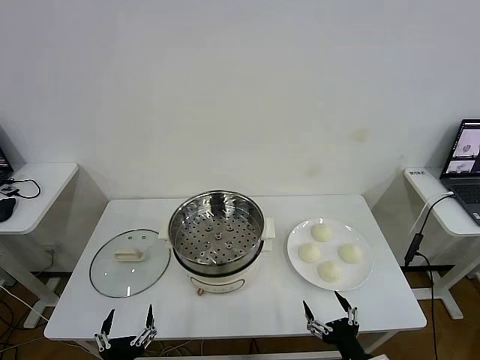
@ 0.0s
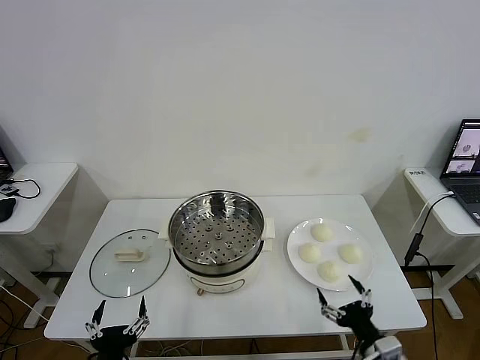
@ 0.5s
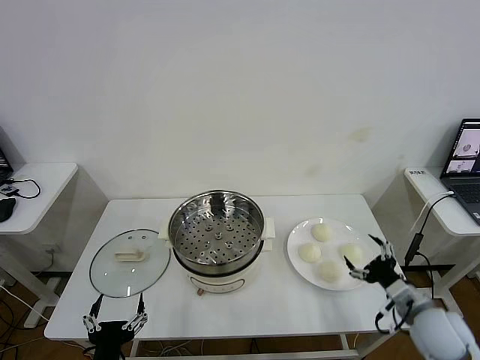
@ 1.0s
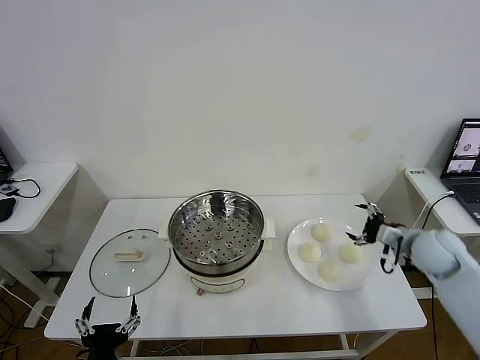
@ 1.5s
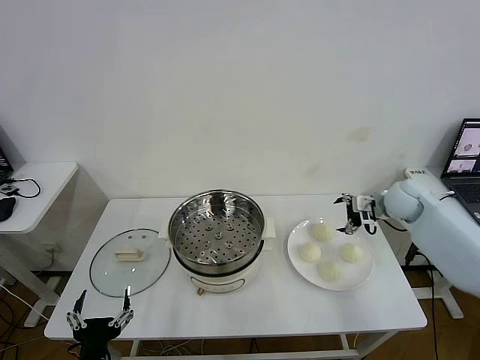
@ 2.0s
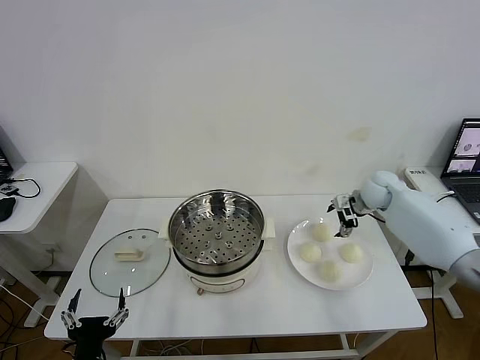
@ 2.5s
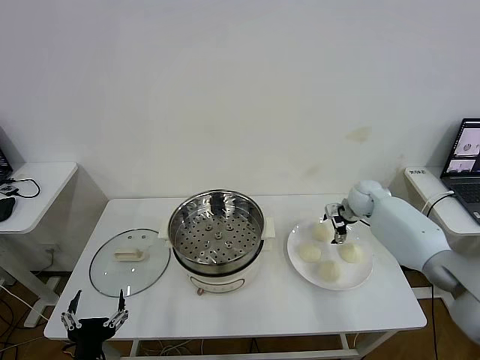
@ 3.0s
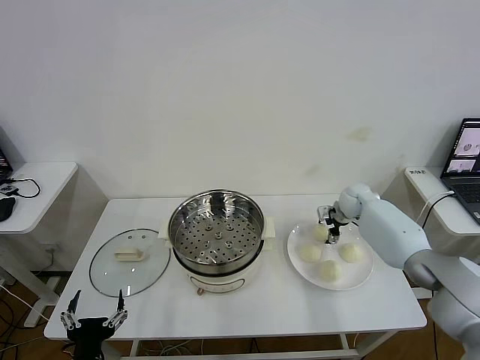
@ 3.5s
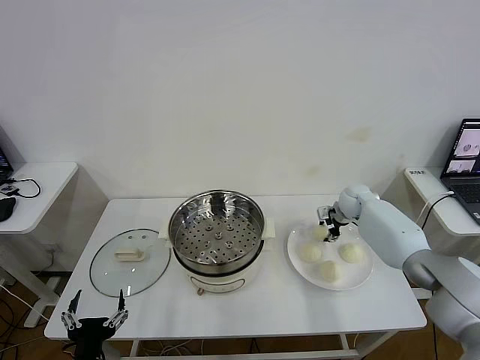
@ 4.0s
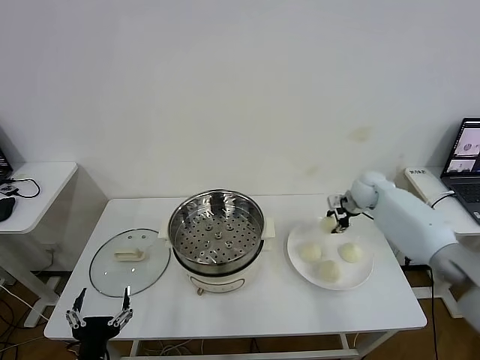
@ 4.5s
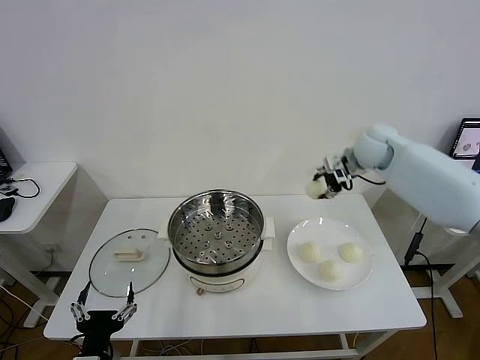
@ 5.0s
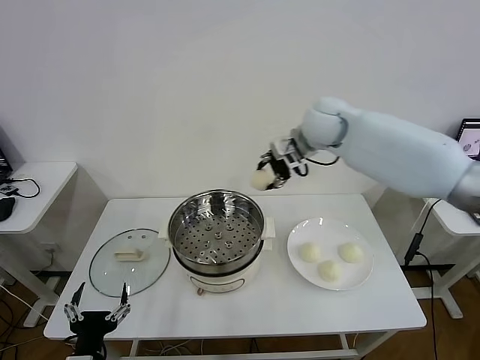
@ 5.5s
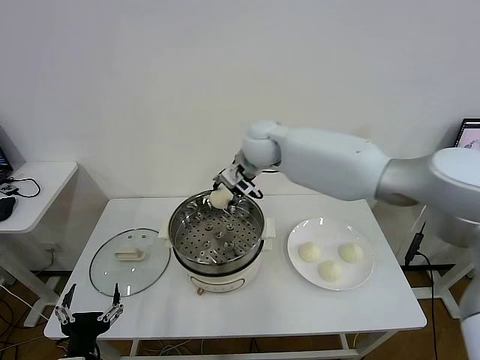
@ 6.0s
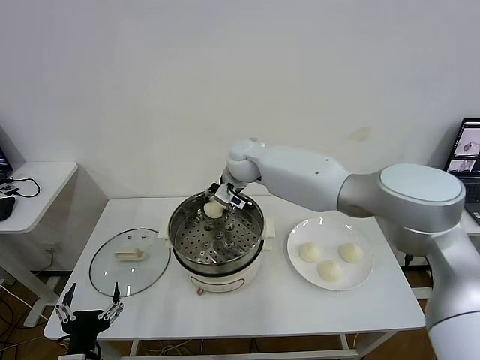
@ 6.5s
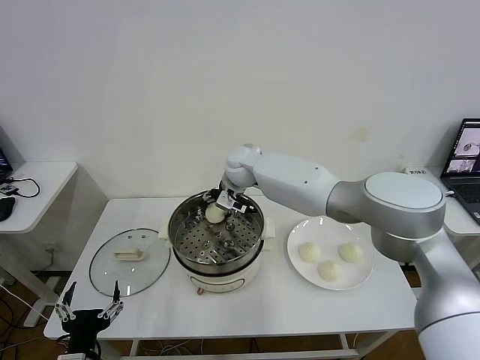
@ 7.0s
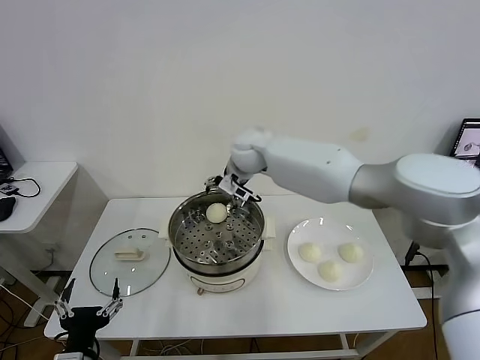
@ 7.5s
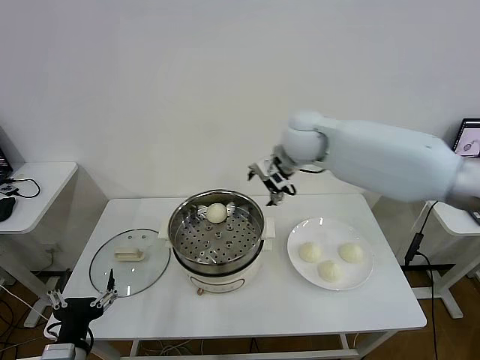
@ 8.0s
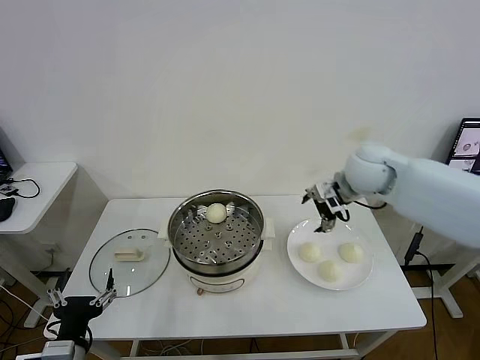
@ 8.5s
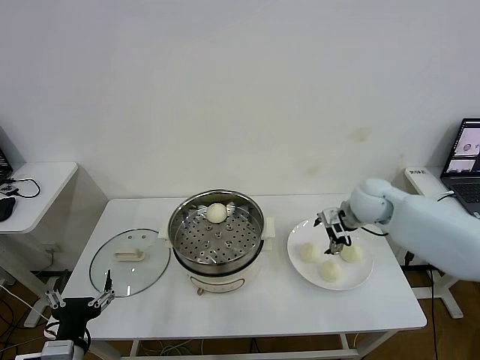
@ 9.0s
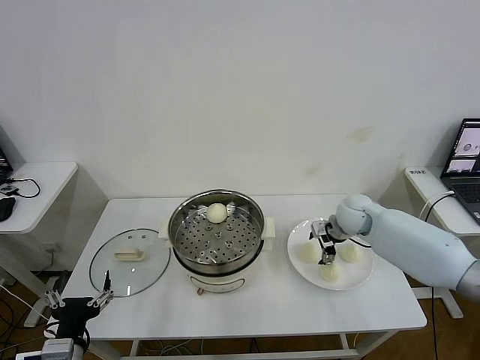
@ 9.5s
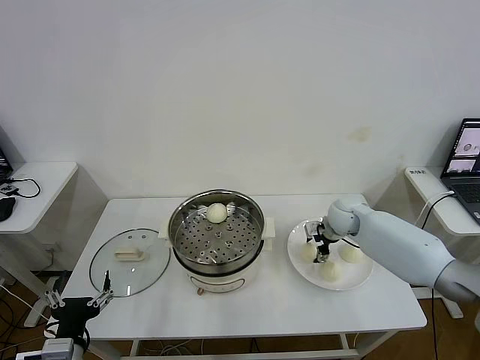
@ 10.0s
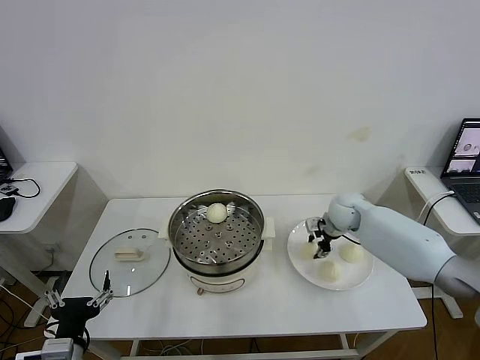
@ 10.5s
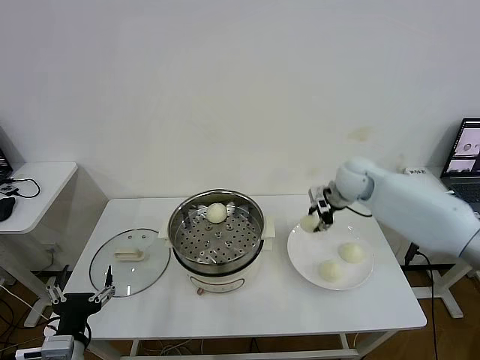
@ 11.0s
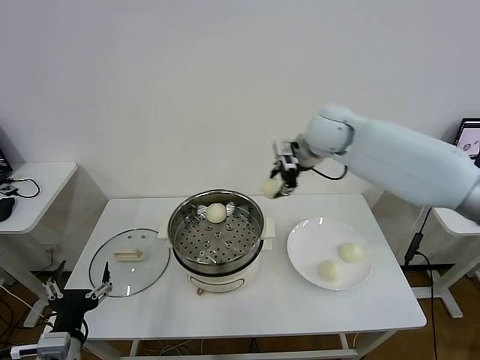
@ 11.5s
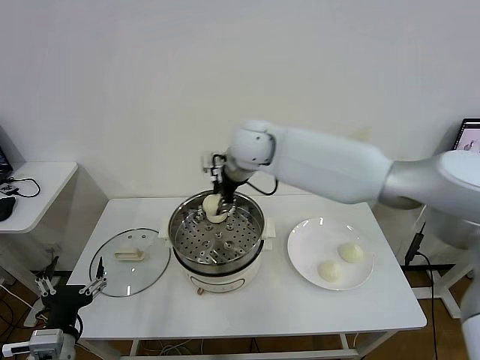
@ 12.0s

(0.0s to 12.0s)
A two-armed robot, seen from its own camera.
Task of the whole recording: take steamed baozi put them in steamer then cover it.
Step, 0.0s - 4.0s: Grasp the baozi in the plate with right gripper.
Step, 4.5s - 7.0s: Place the baozi on the steamer with right gripper.
Step, 7.5s - 10.0s: Grasp the baozi in the plate with right gripper.
2.0s - 4.0s: The right gripper goes roughly 10 cm downward, forward and to the left, and closes.
4.0s - 6.0s: The right gripper moves to the left and upward, about 35 cm.
6.0s - 8.0s: The right gripper moves to the right, about 15 cm, and opens.
8.0s - 10.0s: The right gripper shifts approximately 25 cm downward and to the right, and closes up.
10.0s - 12.0s: The right gripper is displaced to the left and upward by some 35 cm.

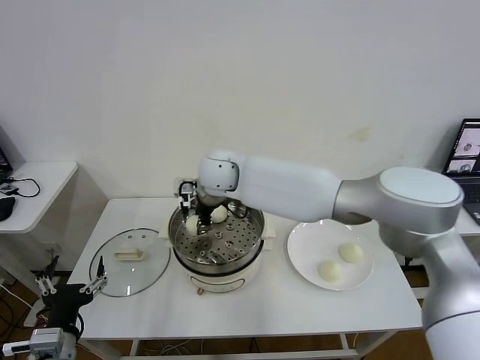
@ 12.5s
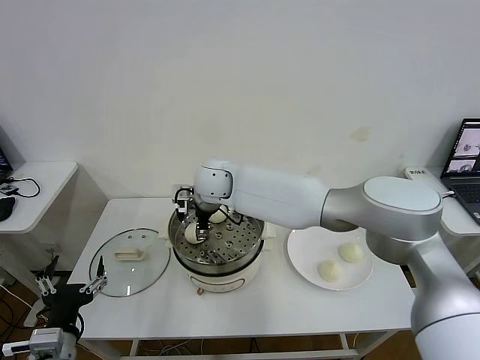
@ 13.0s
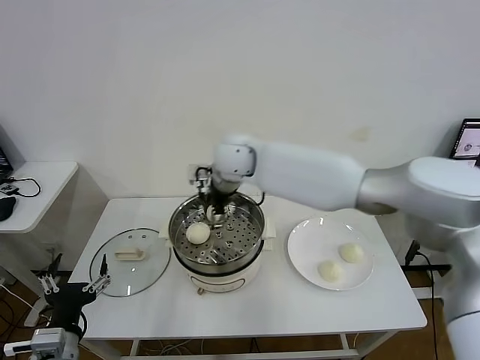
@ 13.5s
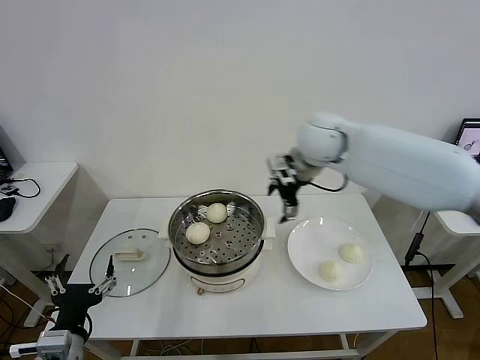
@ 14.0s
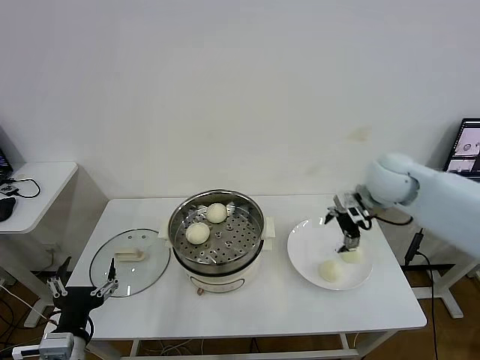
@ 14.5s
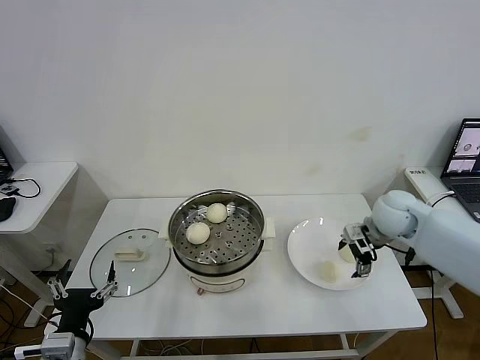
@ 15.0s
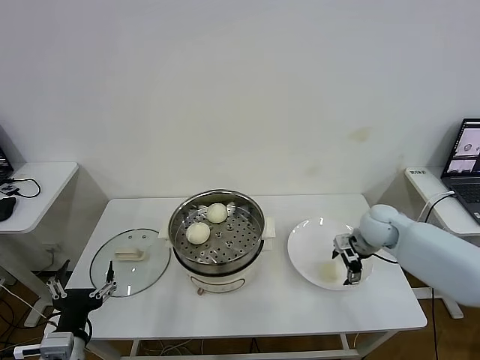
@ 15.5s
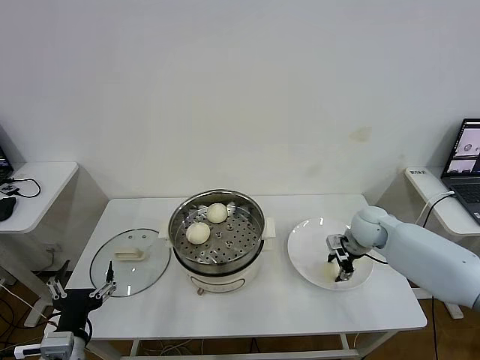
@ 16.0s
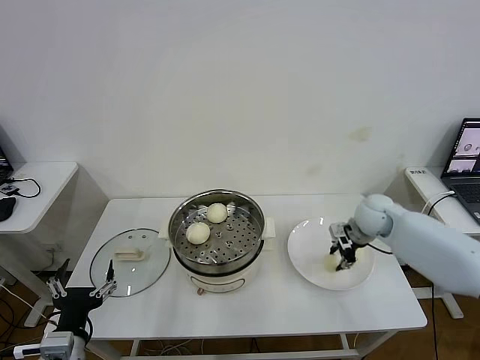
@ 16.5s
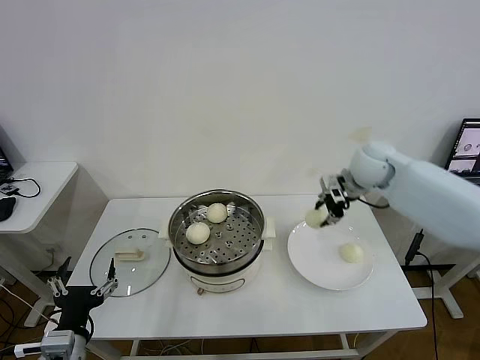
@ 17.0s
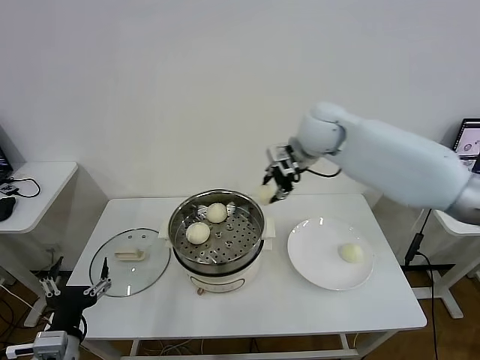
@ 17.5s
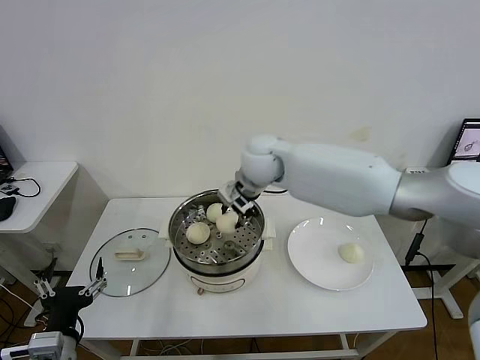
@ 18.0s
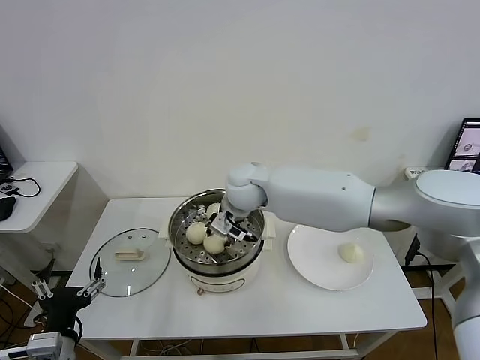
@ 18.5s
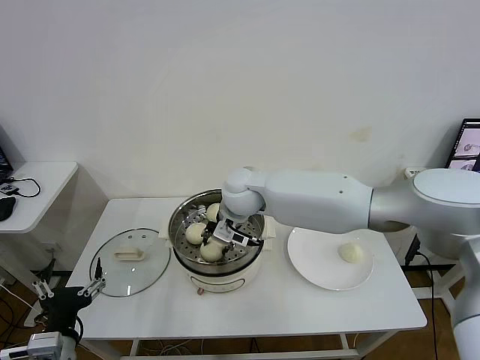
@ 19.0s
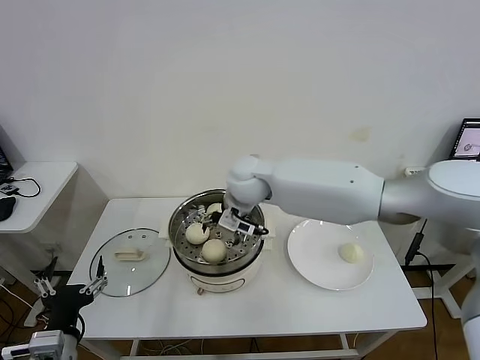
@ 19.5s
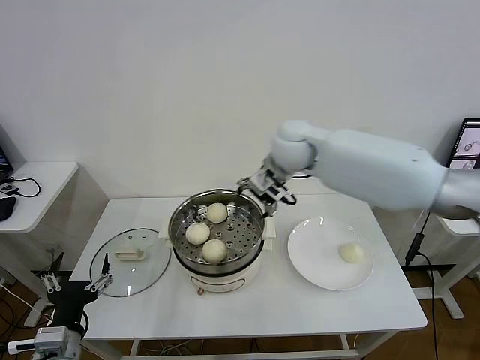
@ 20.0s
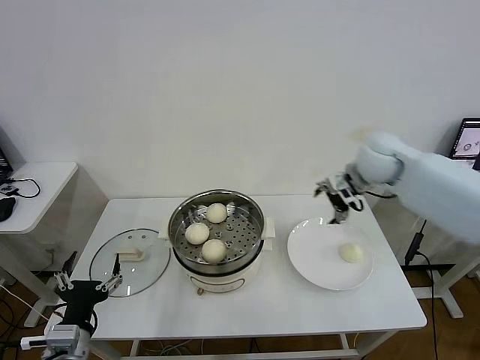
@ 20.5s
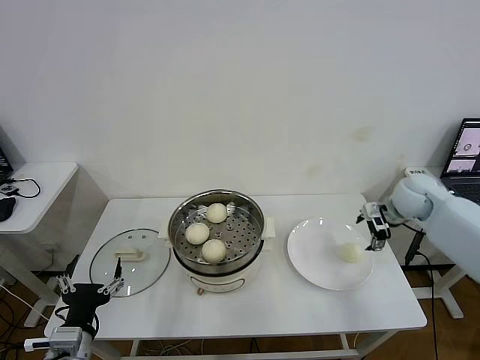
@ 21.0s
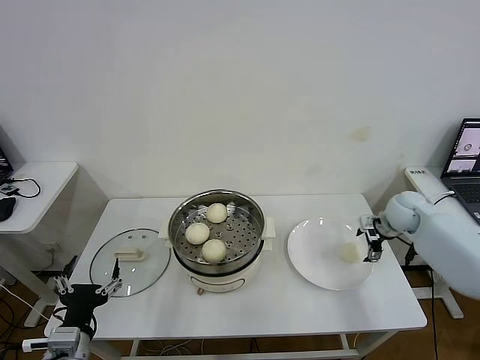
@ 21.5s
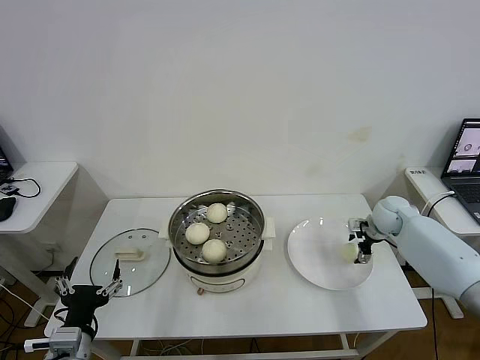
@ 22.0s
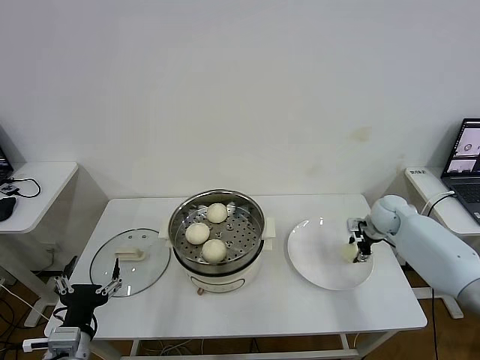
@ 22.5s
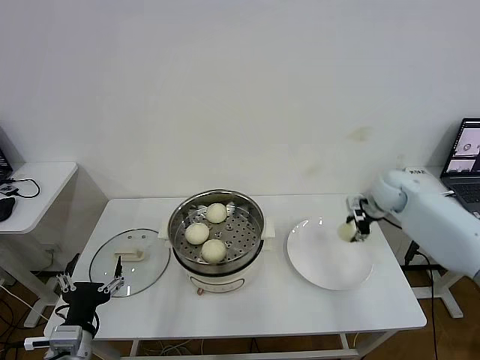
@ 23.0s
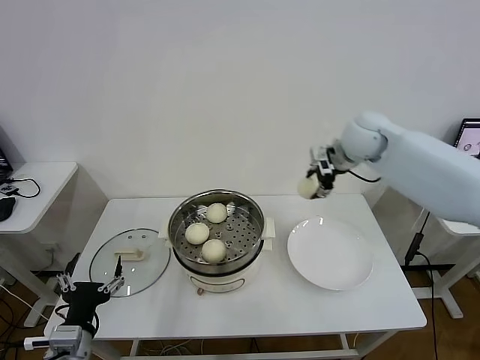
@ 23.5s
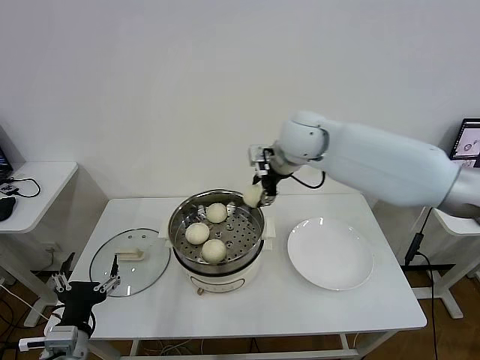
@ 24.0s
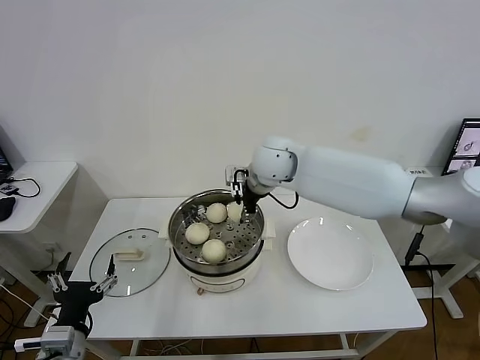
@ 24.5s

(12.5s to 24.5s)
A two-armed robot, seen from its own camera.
Task of the whole recording: take steamed baozi put them in steamer then cover it.
Step, 13.5s - 16.0s: Grasp the baozi in the plate with right gripper.
Step, 16.5s - 19.0s: Place the baozi on the steamer with right gripper.
Step, 19.5s - 22.5s: Grasp the baozi in the plate with right gripper.
12.5s - 14.5s: The right gripper heads to the right, covering roughly 35 cm, and opens.
14.5s - 16.5s: The right gripper travels downward by some 10 cm, and closes.
16.5s - 18.5s: The right gripper travels to the left by roughly 30 cm.
18.5s - 20.5s: The right gripper travels to the right by about 30 cm, and opens up.
20.5s - 22.5s: The right gripper heads downward and to the right, covering roughly 20 cm, and closes its fingers.
22.5s - 24.5s: The right gripper shifts roughly 35 cm to the left and upward.

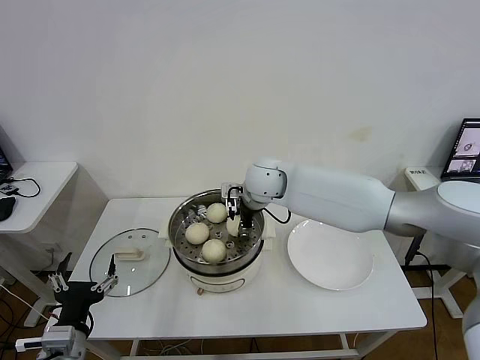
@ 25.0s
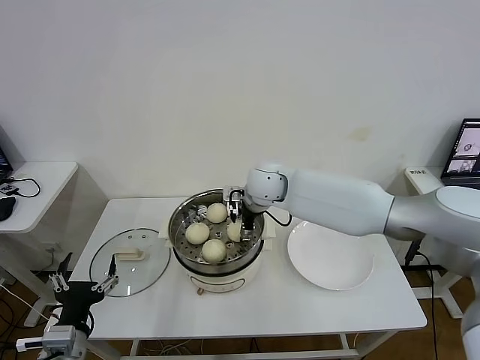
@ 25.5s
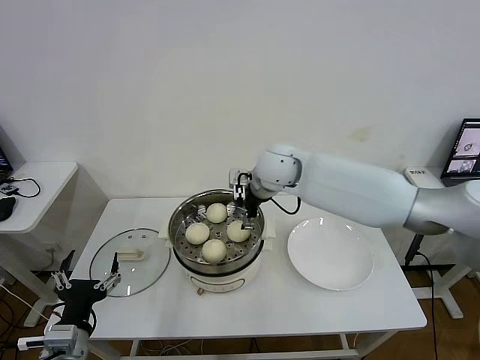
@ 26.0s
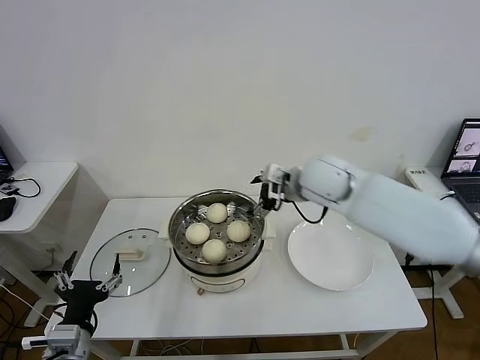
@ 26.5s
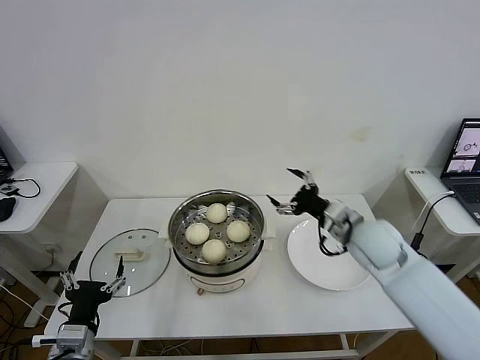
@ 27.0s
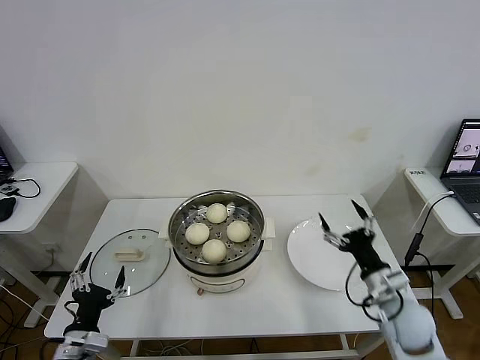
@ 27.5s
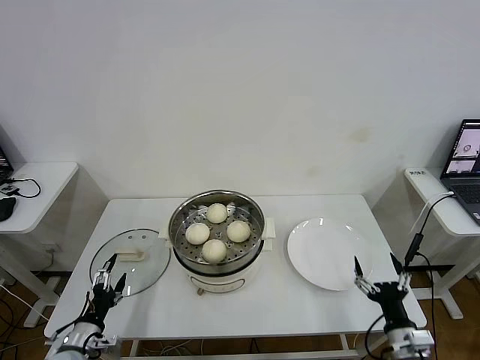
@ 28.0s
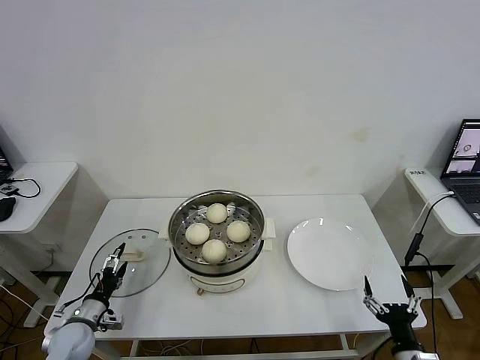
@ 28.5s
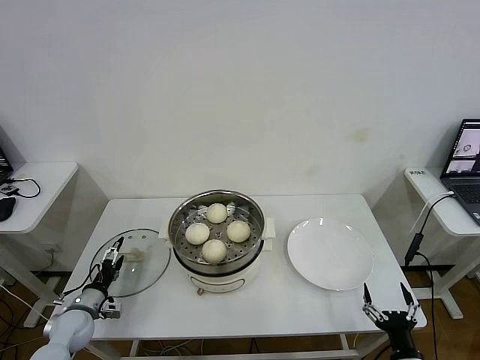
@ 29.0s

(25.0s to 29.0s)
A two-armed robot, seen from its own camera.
Task of the whole recording: take steamed baozi put them in steamer then cover it.
25.0s - 27.0s: The right gripper moves to the right and backward, some 25 cm, and opens up.
27.0s - 29.0s: The right gripper travels backward and downward by about 35 cm. The left gripper is displaced forward, downward and to the left by some 25 cm.
